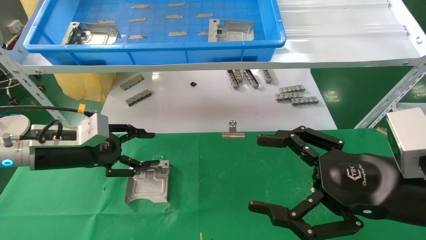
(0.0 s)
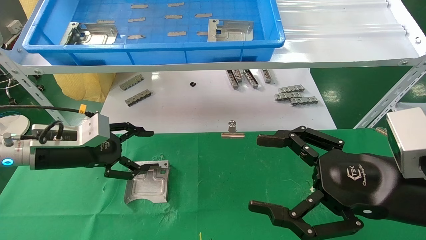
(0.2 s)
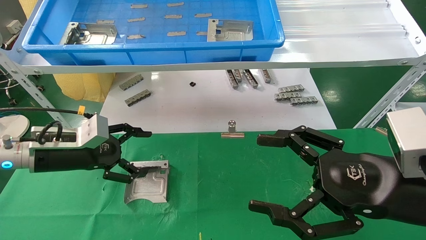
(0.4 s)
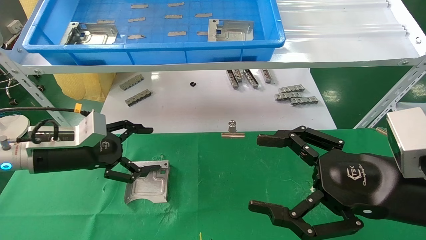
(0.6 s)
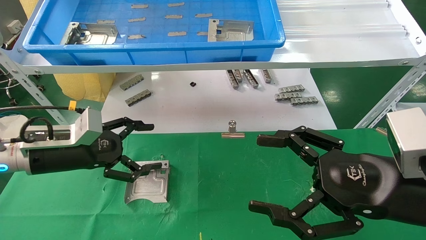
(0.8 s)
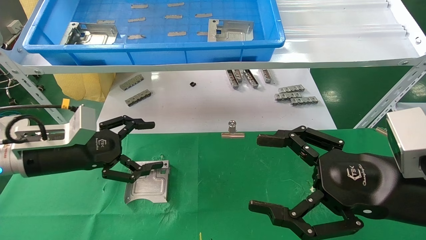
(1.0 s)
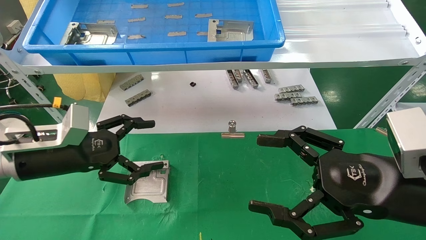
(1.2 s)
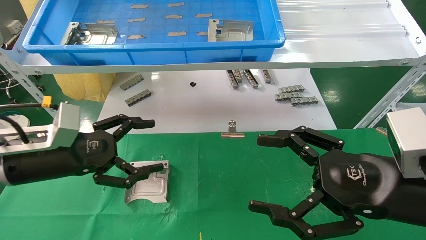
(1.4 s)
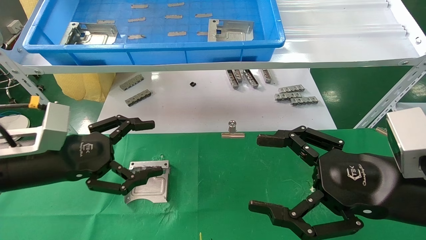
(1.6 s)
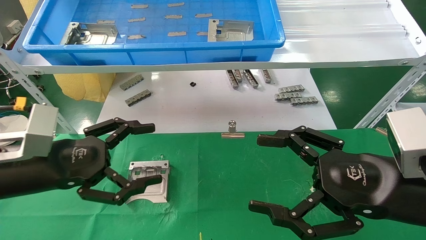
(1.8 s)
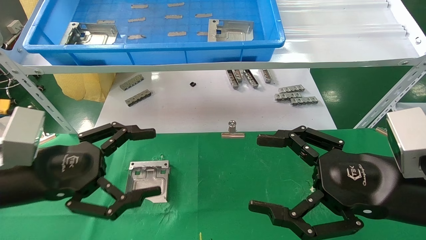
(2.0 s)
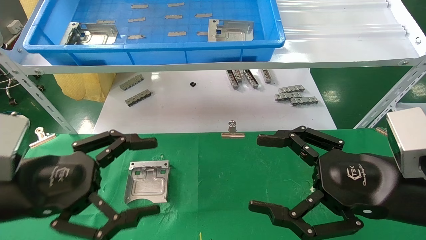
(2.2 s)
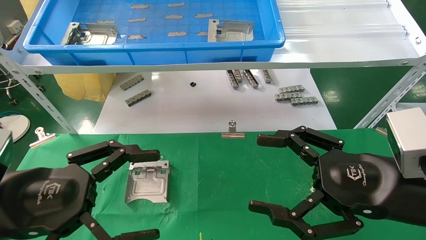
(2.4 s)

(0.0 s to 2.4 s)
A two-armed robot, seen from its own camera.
Task of the whole recording: use the mechanical arm to pick up the parts and place them on the table.
0.0 s - 1.2 s: The left gripper opens up.
1.2 s - 2.4 s: The left gripper goes approximately 10 cm backward.

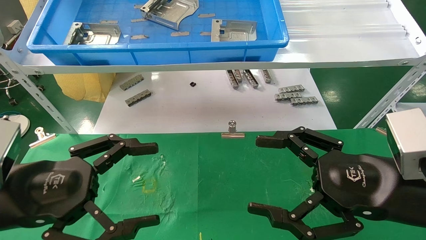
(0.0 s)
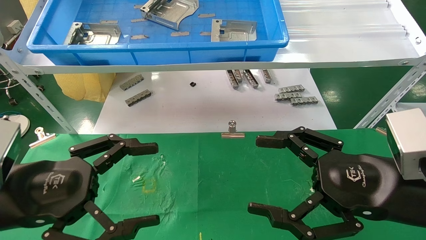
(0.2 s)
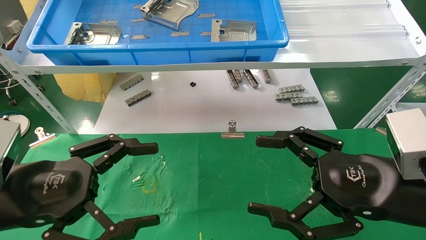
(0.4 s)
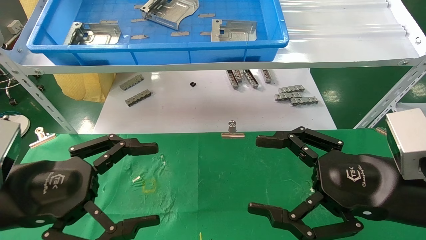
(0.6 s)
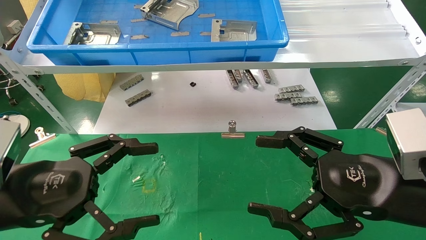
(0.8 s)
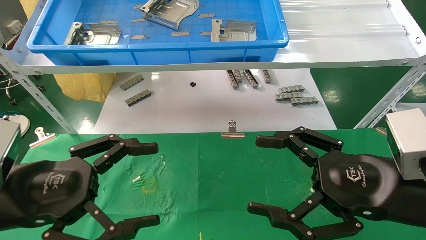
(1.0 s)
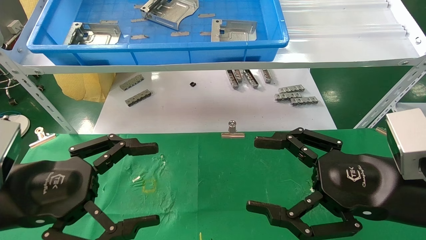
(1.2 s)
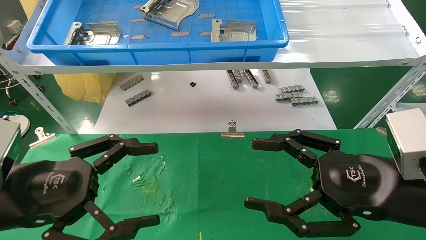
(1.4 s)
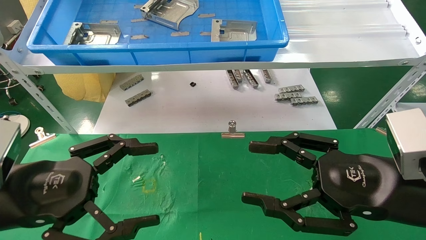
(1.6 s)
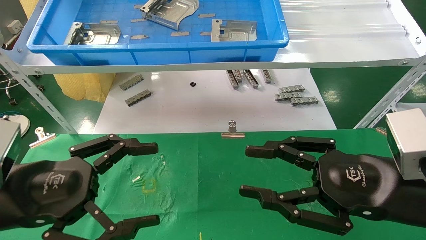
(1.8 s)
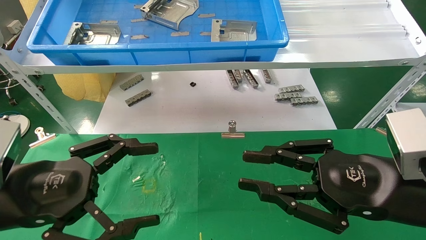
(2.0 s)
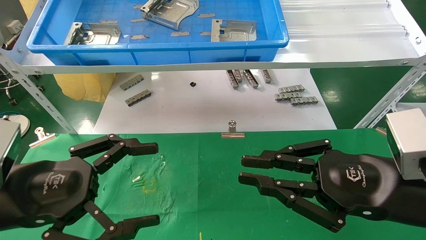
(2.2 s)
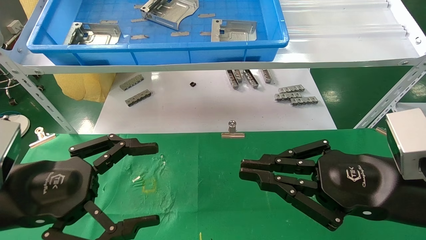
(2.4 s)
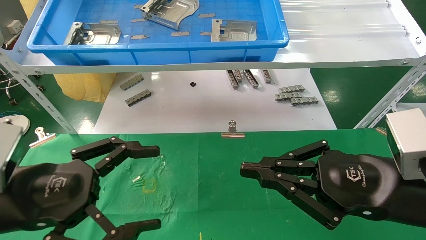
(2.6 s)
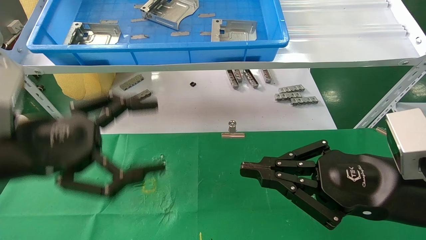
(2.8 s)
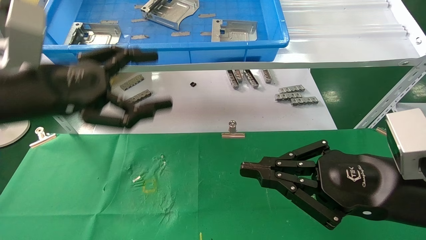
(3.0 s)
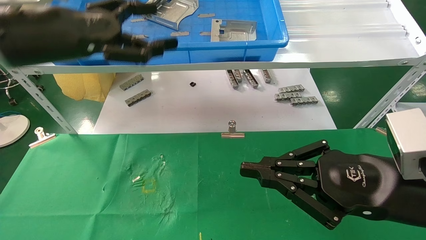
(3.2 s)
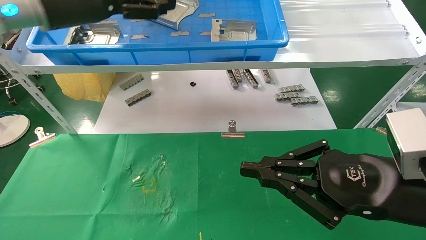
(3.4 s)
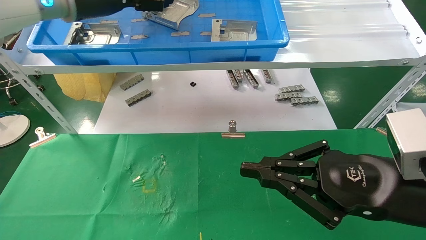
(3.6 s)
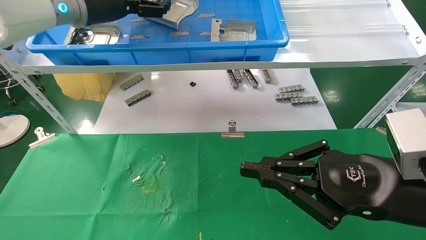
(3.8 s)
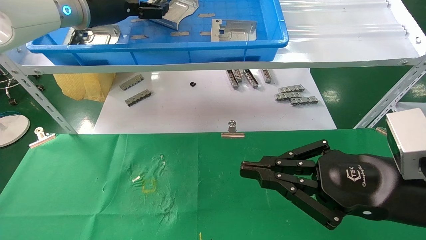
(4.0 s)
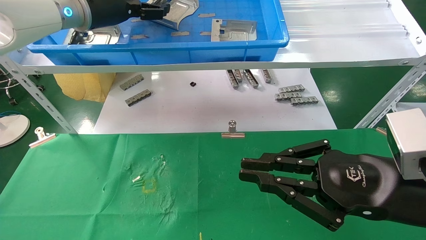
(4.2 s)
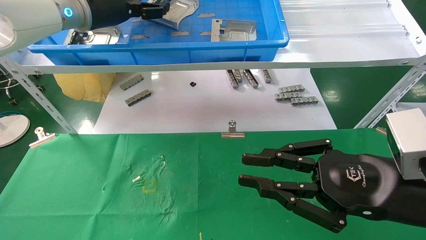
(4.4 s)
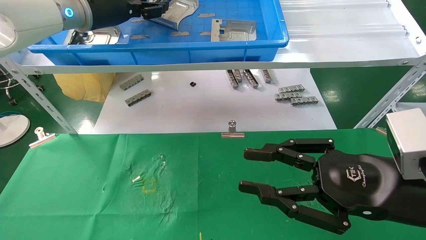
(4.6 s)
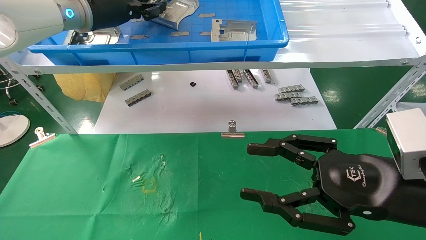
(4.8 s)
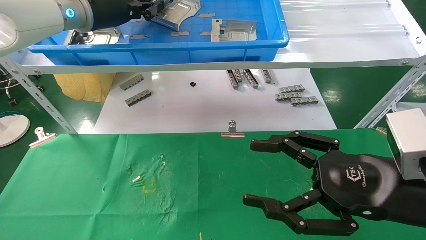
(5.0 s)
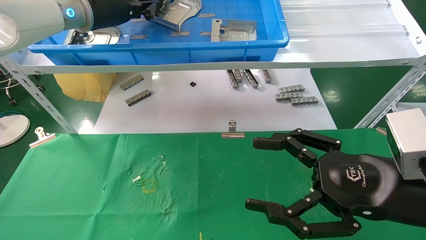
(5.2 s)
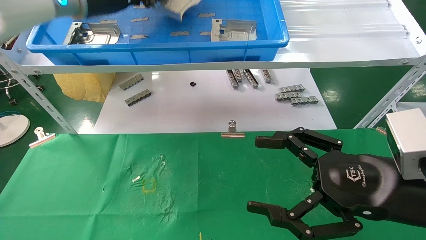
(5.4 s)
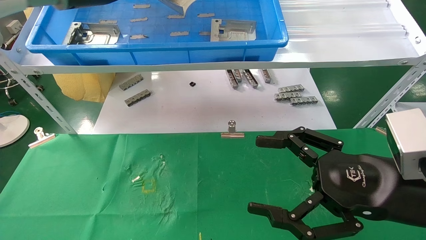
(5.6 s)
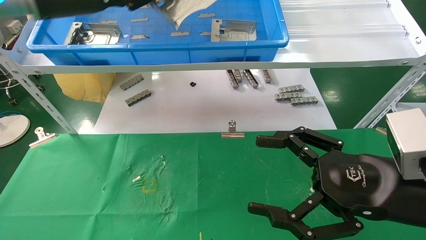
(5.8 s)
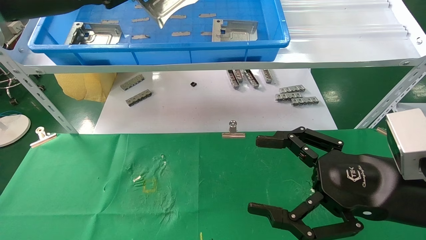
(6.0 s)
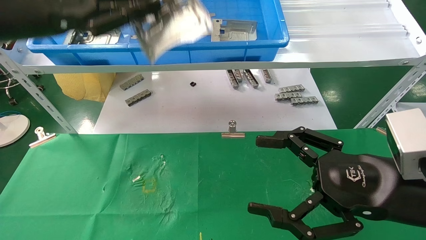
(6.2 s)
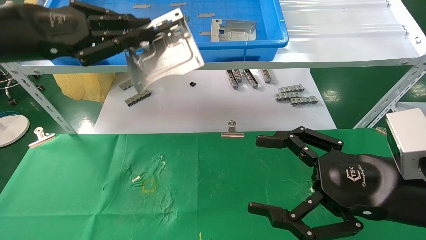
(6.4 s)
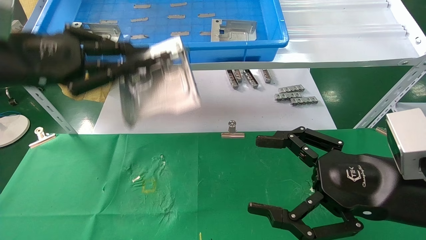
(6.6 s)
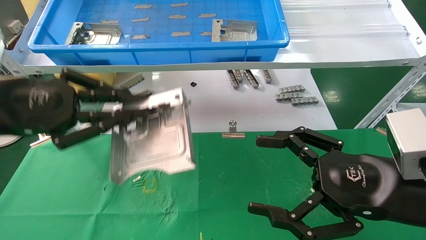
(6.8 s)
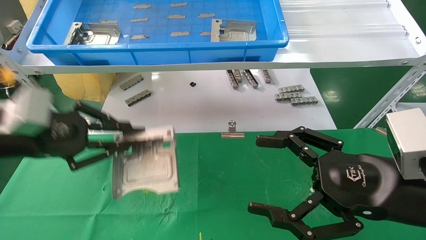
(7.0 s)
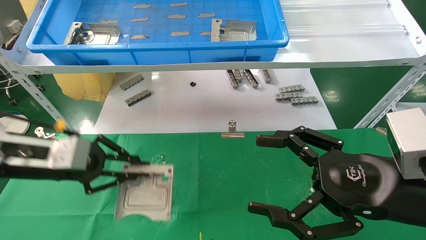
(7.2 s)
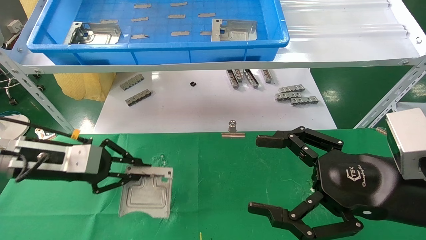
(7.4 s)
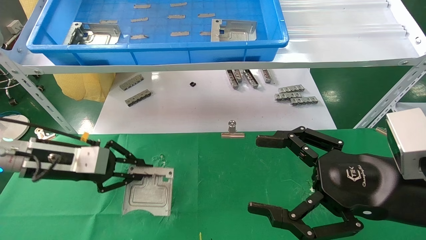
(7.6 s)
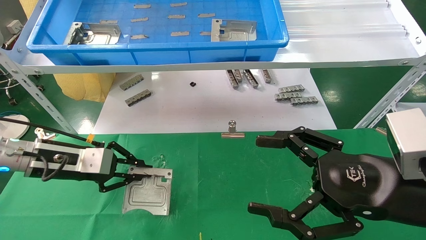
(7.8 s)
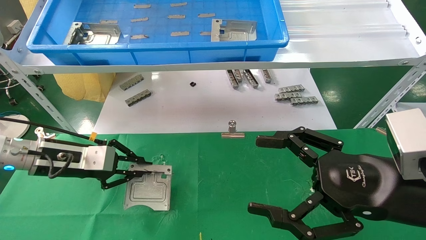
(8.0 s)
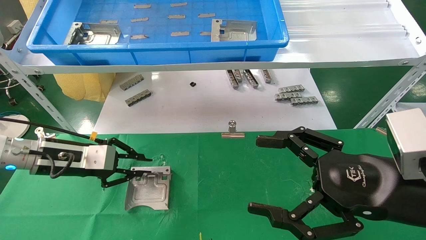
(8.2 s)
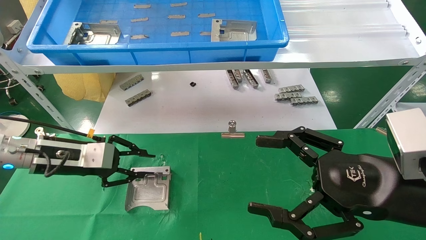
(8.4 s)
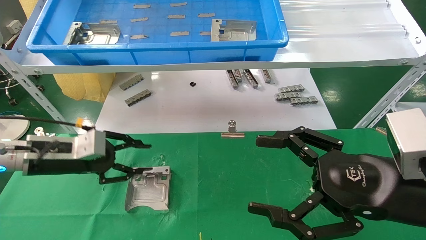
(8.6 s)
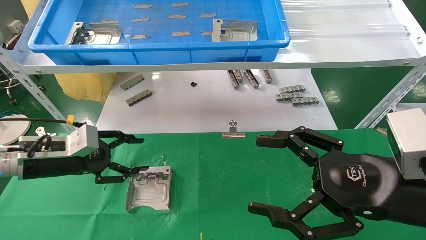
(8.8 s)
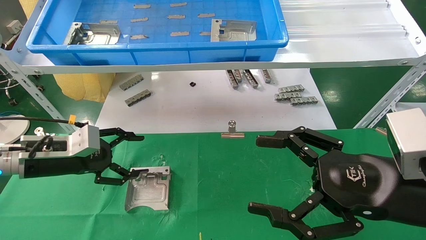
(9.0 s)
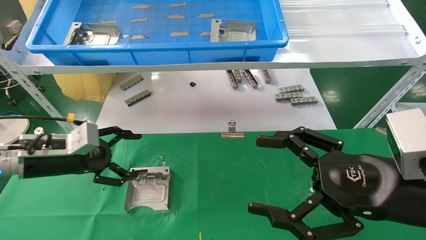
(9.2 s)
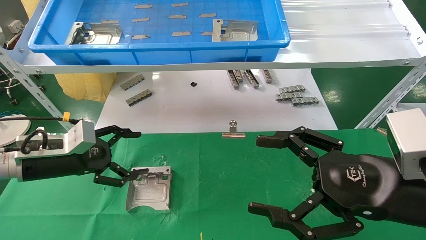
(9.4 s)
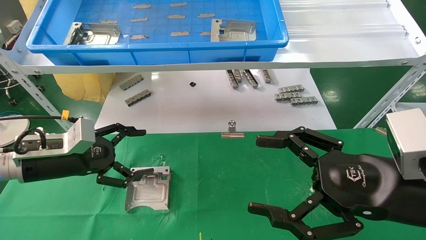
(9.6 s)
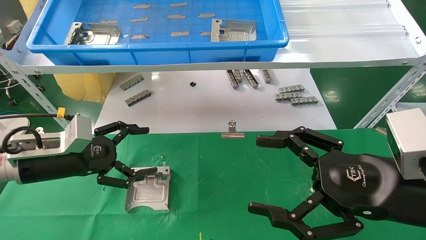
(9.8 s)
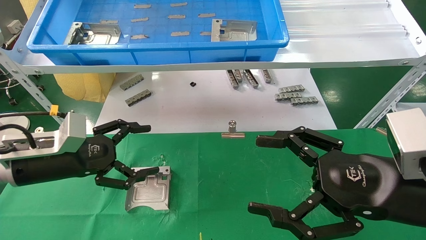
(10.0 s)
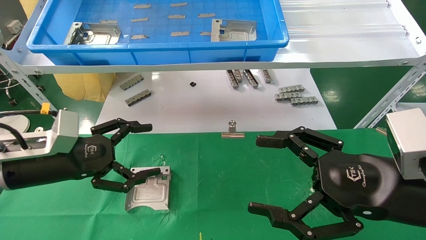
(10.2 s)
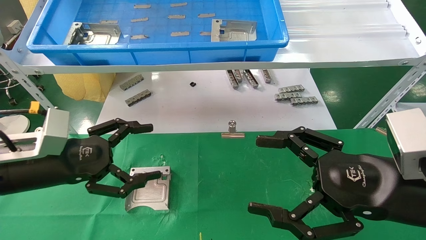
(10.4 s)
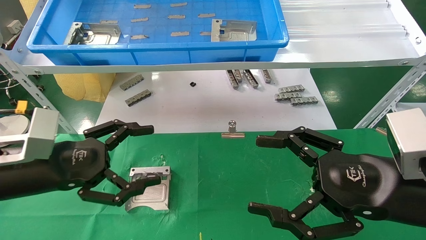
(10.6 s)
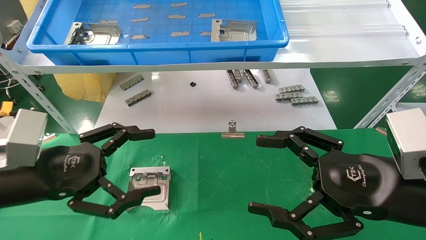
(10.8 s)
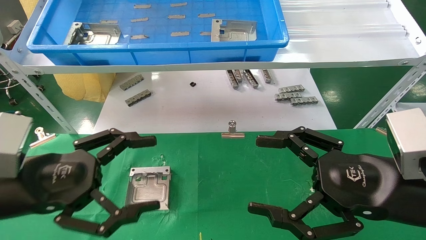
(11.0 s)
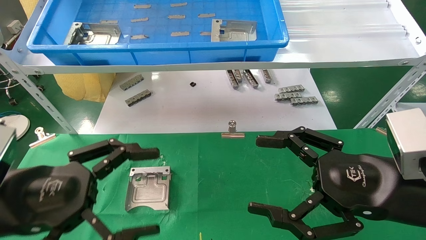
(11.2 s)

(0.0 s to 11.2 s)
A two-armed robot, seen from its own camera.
Task of the whole recording: use the mechanical arm to pick up the parts and place them on the table.
Step, 3.0 s - 5.2 s: Pick up the hard drive bracket from the feeding area.
Step, 5.4 s - 8.4 s: Place the hard drive bracket into the box.
0.0 s - 1.6 s: The two grippers keep their place.
1.6 s - 3.2 s: The right gripper closes. Meanwhile the left gripper travels upward and forward by roughly 20 cm.
3.2 s - 4.8 s: The left gripper is displaced forward by approximately 10 cm, and closes. The right gripper opens.
4.8 s - 6.4 s: The right gripper opens up, while the left gripper shifts roughly 15 cm backward and to the left, and closes.
6.4 s - 8.0 s: The left gripper goes about 20 cm downward.
8.0 s - 9.6 s: The left gripper opens.
9.6 s - 11.2 s: The left gripper is displaced backward by roughly 15 cm.
